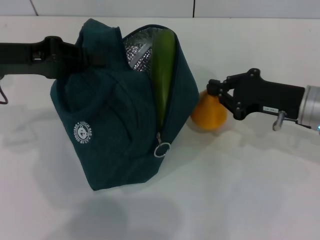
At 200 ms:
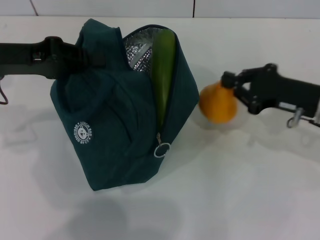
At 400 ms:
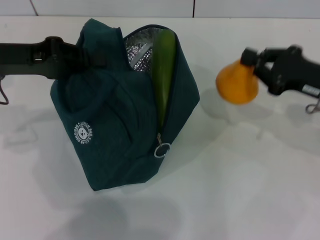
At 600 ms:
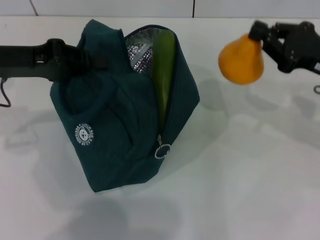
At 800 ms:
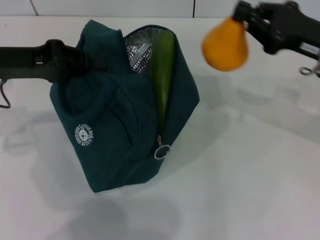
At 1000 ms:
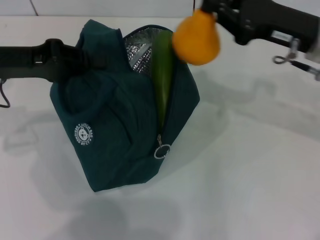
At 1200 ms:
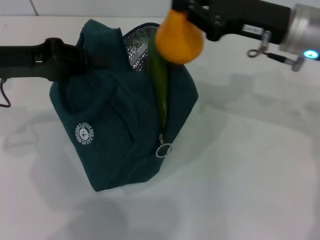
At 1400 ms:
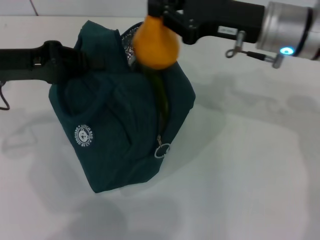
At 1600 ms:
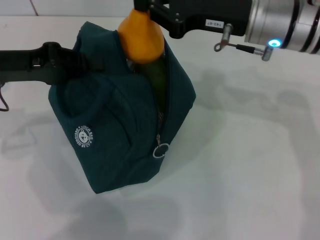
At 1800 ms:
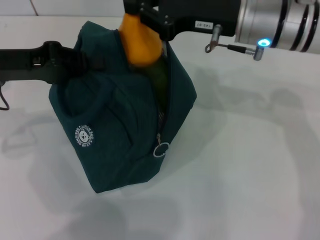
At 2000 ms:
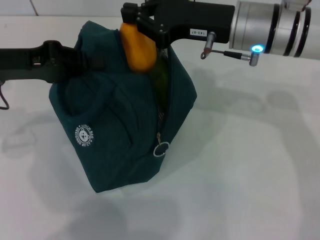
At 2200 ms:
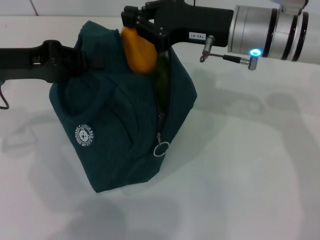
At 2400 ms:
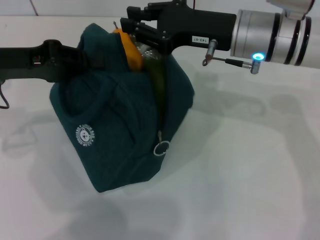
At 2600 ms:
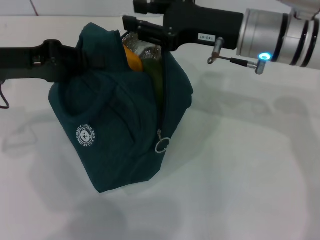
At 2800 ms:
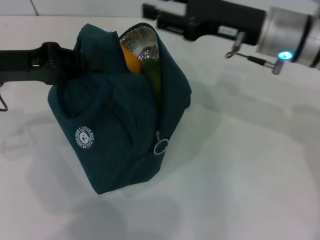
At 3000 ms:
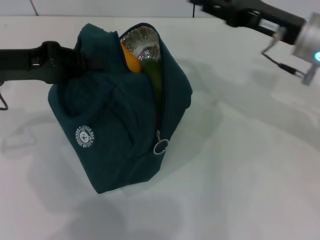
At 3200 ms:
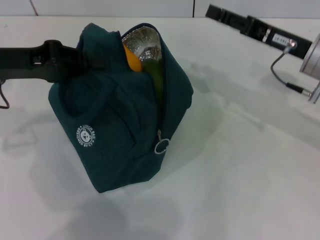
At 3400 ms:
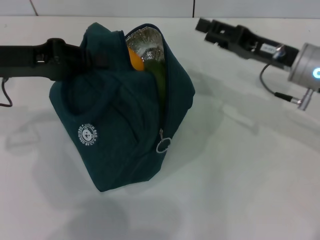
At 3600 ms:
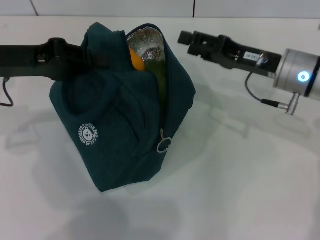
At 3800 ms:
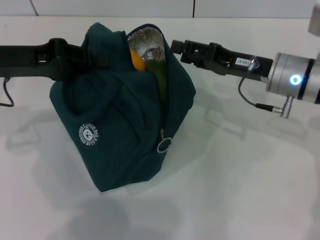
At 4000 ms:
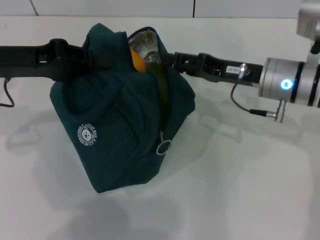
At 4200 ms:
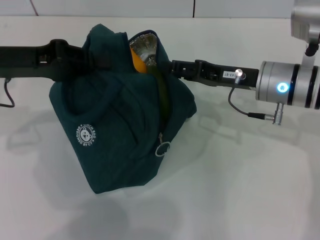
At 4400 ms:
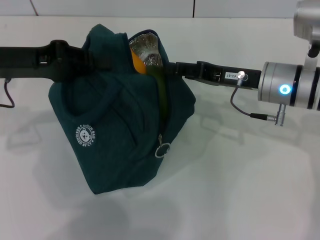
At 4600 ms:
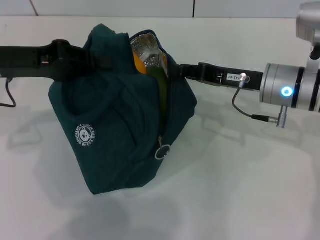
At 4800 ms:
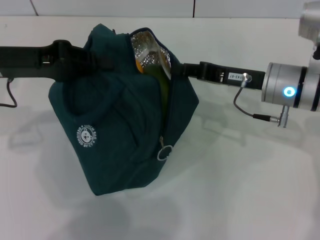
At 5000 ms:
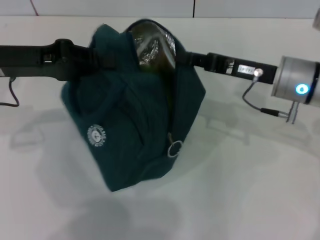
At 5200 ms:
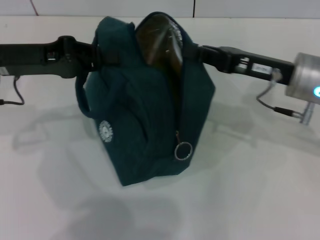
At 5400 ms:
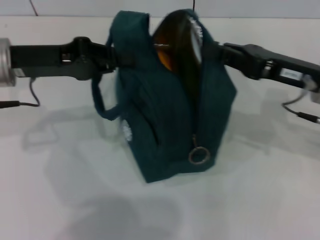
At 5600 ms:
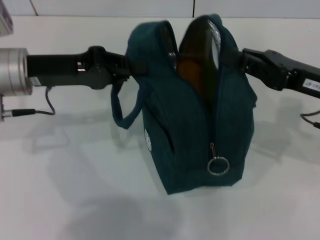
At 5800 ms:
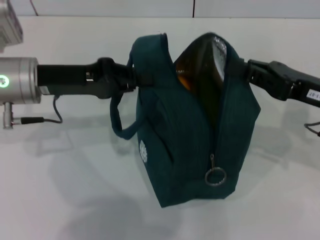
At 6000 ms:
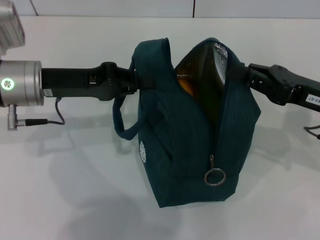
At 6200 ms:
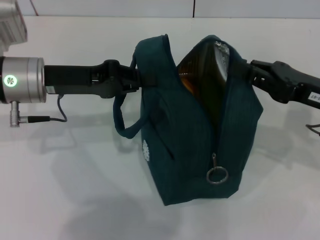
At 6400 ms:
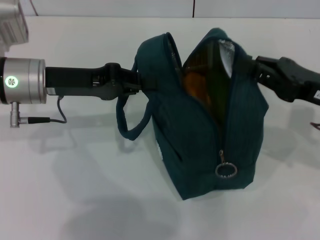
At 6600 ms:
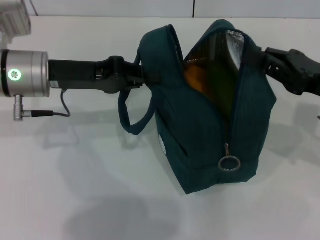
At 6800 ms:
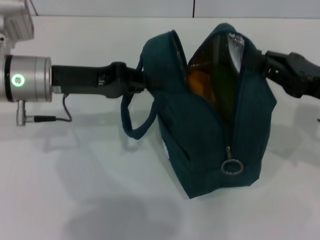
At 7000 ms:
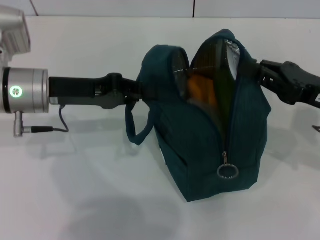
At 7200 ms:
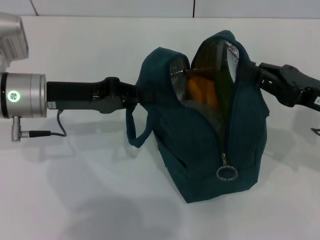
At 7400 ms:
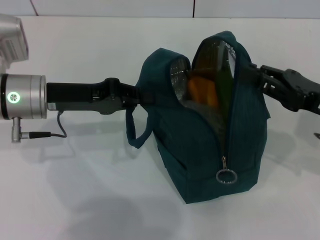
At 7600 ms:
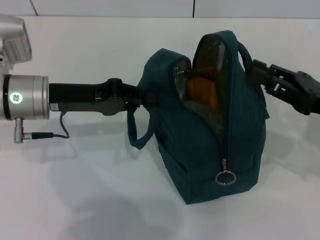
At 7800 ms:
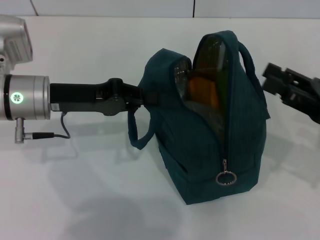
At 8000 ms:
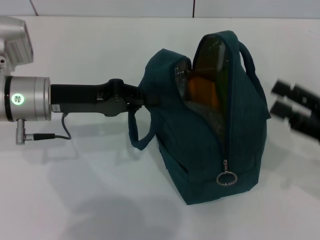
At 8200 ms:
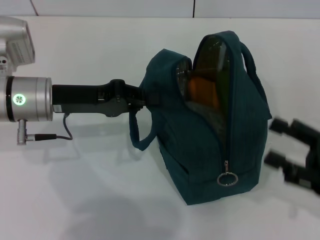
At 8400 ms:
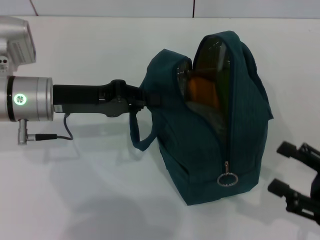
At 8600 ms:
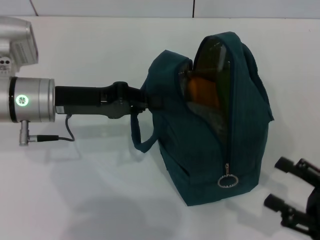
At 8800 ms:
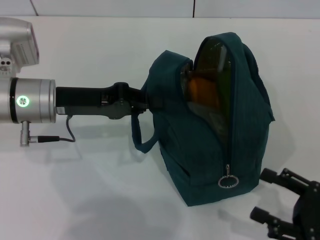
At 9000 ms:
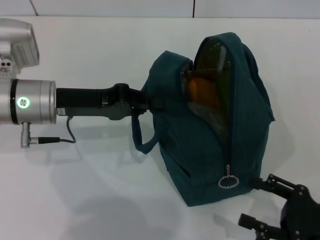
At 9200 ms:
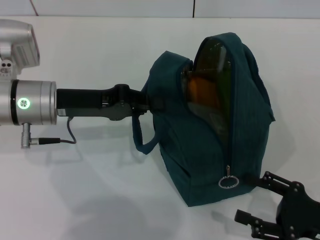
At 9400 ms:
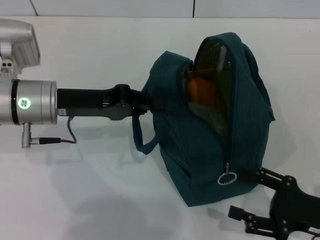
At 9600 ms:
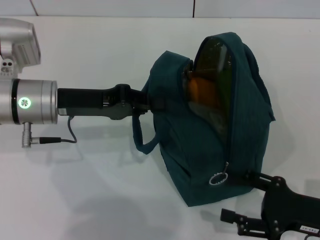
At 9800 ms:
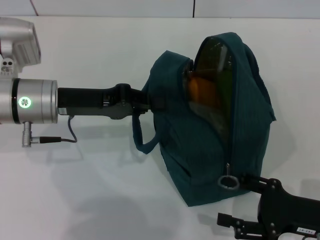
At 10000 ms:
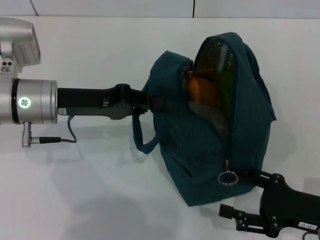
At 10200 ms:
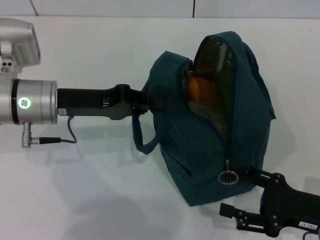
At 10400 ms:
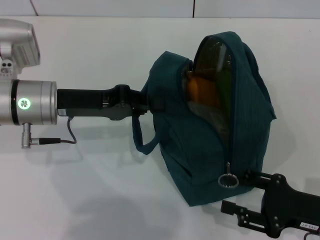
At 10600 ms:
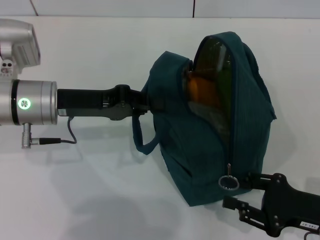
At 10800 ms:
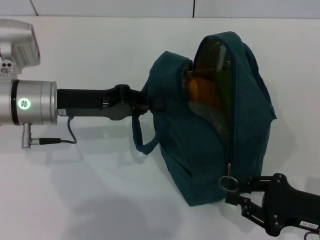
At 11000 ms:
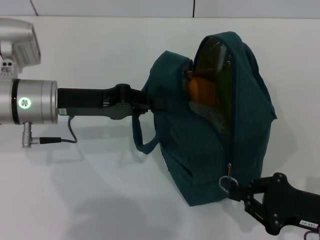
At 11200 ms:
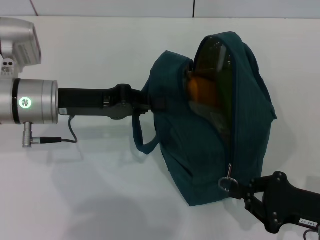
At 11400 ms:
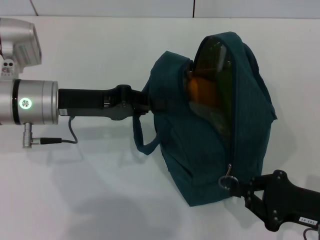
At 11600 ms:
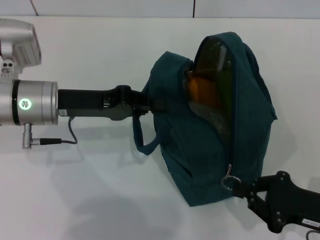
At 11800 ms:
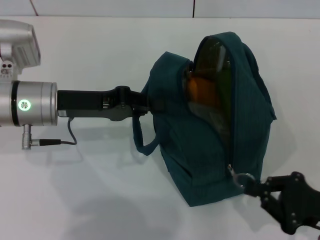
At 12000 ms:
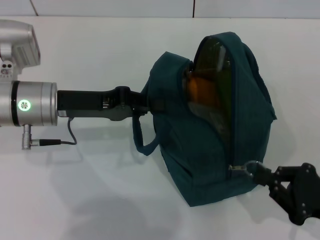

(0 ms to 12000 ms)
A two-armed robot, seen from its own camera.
Step, 2600 ms - 7400 ms: Hold the lunch bag with your right hand.
0 ms - 1600 ms: The right gripper is displaced upward and to the left by approximately 15 cm.
1600 ms - 3000 ms: The right gripper heads to the right, covering about 5 cm, and opens its fingers.
3000 ms - 4400 ms: The right gripper shifts roughly 5 cm downward.
4400 ms - 6000 ms: The left gripper moves to the right, roughly 5 cm, while the right gripper travels to the right and backward by some 10 cm, and closes its fingers.
7600 ms - 9000 ms: The right gripper travels backward and downward by roughly 15 cm, and opens up.
9000 ms - 10400 ms: The grippers move only a little.
10400 ms - 12000 ms: The right gripper closes up.

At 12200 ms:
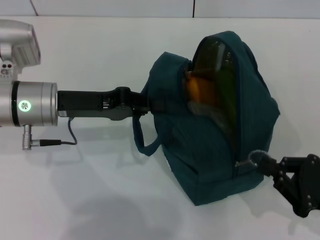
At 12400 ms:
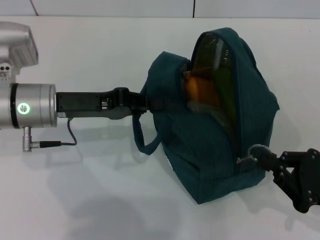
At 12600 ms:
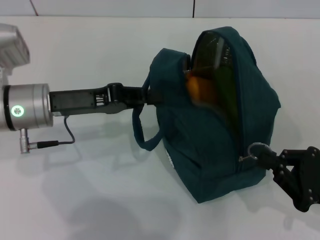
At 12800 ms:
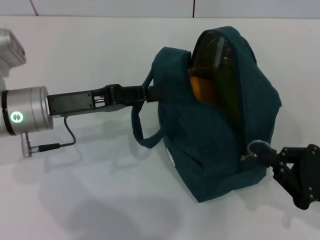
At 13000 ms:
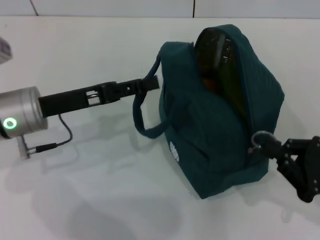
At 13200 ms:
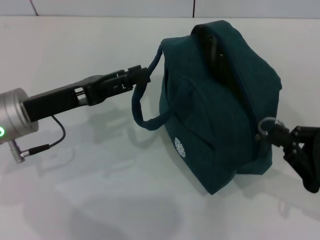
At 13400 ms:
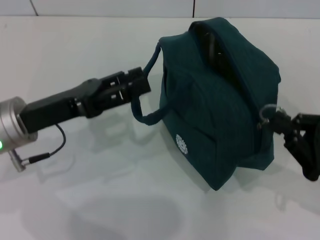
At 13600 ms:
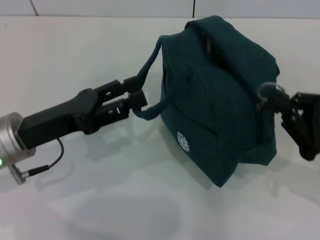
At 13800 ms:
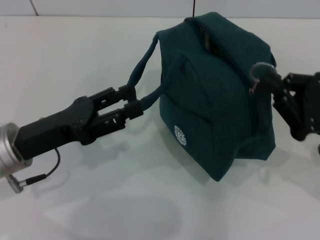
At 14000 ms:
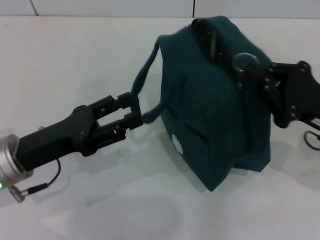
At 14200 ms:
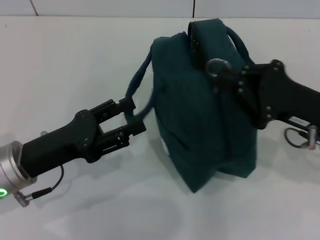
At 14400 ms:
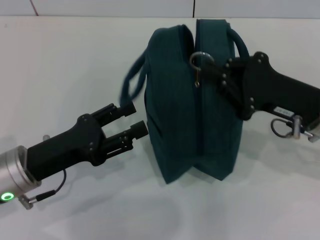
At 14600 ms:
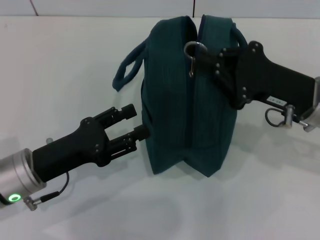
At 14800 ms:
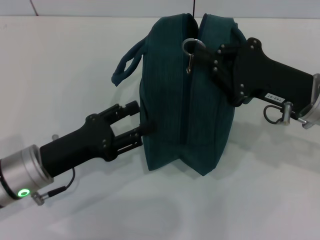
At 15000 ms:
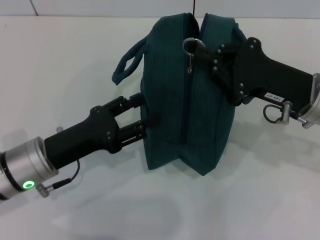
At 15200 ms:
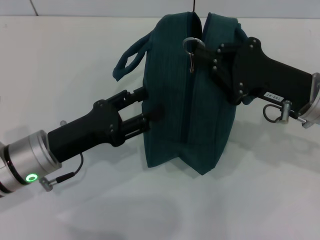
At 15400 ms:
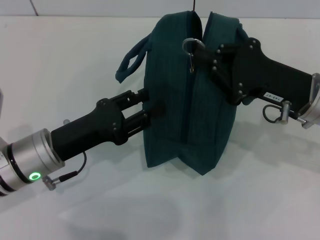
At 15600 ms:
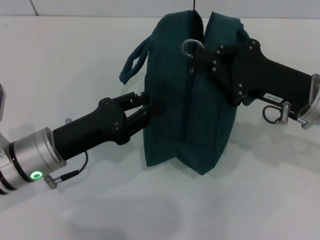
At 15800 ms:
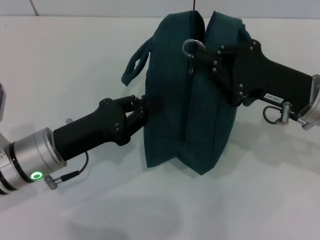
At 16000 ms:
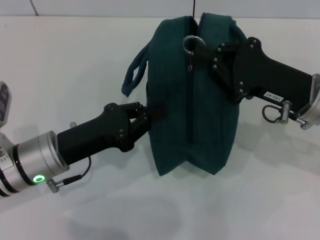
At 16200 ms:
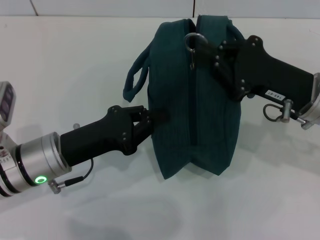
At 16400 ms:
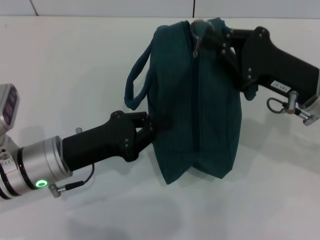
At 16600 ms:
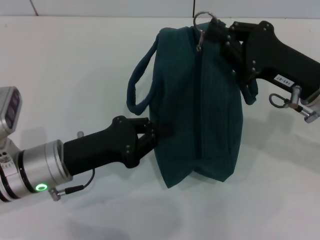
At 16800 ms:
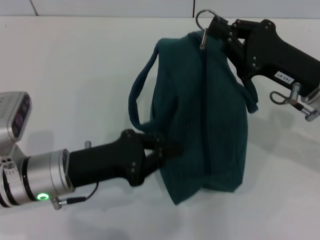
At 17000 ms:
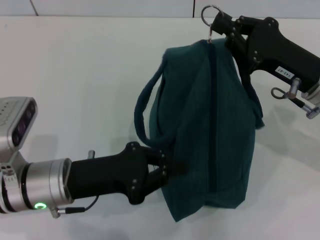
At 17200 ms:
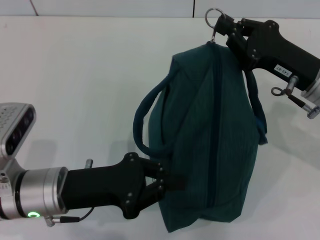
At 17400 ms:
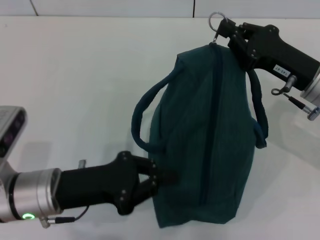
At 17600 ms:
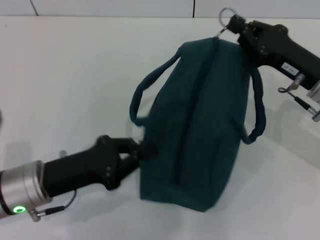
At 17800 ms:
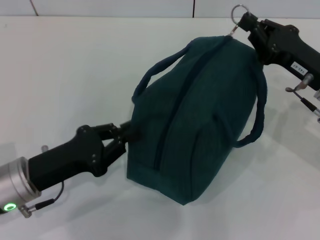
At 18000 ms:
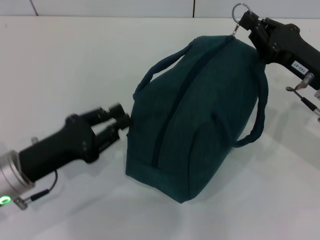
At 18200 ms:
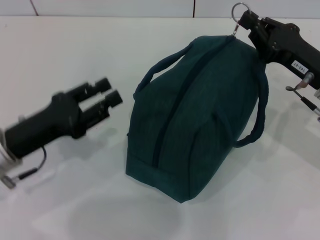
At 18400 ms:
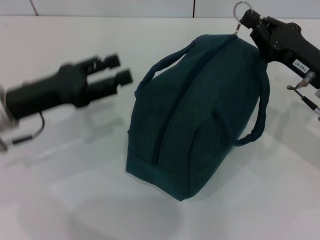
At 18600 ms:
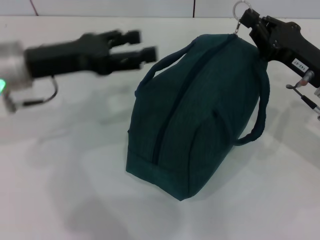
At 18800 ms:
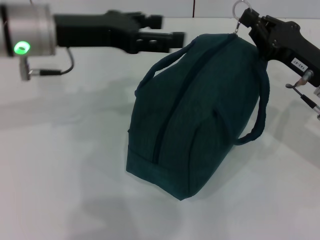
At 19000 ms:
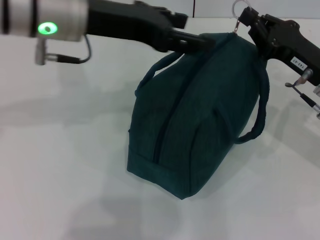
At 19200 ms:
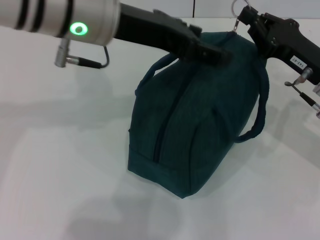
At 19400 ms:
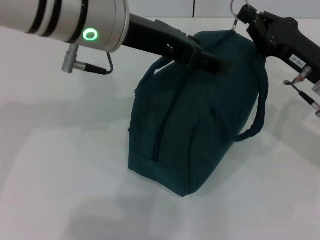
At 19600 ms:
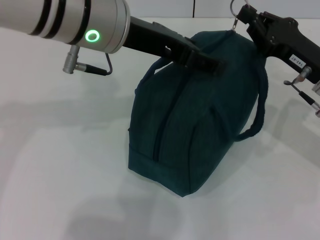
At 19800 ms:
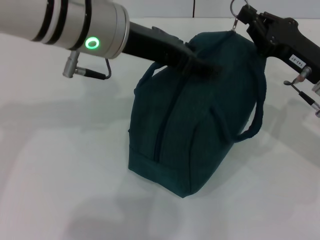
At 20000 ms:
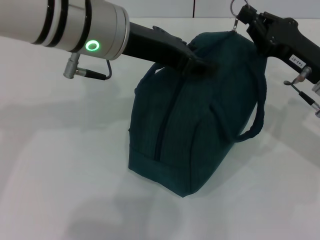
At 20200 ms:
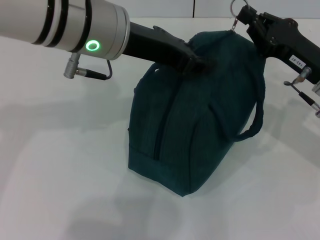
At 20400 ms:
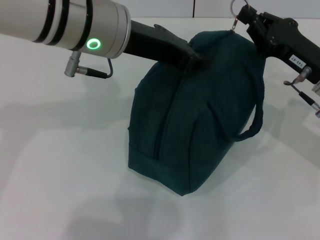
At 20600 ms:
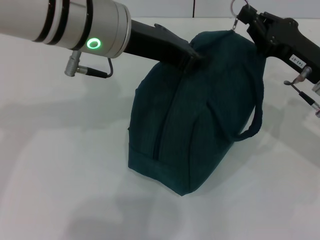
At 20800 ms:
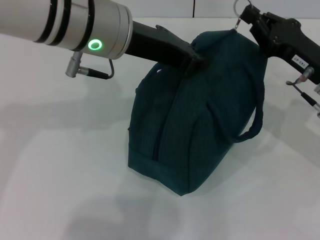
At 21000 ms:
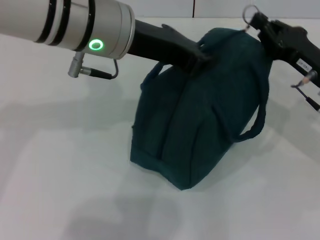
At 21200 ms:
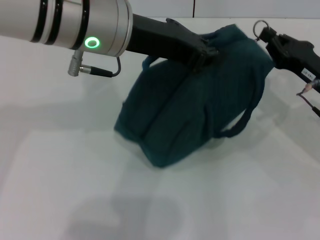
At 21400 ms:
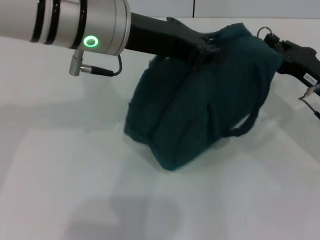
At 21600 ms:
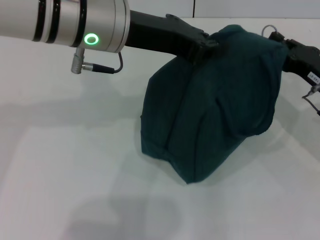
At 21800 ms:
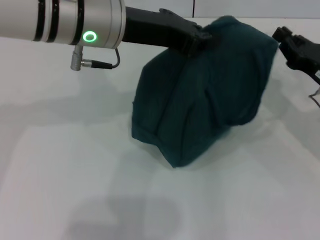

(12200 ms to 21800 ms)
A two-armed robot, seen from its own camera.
Step, 13000 ms - 21600 ms: Zip up the lunch bag with your right hand.
12200 ms - 13800 ms: The left gripper moves backward, roughly 5 cm, and opens. Meanwhile the right gripper moves forward and upward, some 10 cm.
13800 ms - 15400 ms: The right gripper goes about 10 cm to the left and forward.
15400 ms - 17000 ms: The left gripper closes up.
17000 ms - 18600 ms: The left gripper goes roughly 15 cm upward and forward, and opens its fingers.
18600 ms - 20200 ms: The left gripper moves to the right and upward, approximately 15 cm.
20200 ms - 21800 ms: The right gripper moves about 5 cm, while the left gripper closes its fingers.
